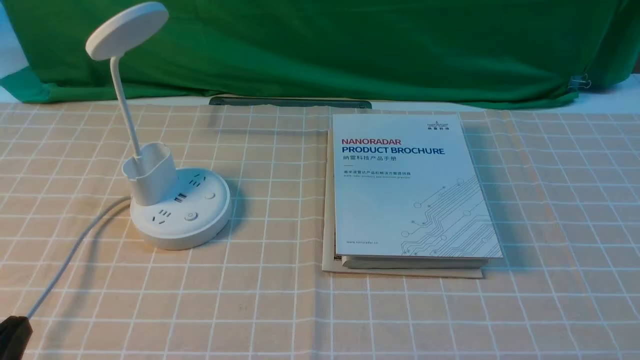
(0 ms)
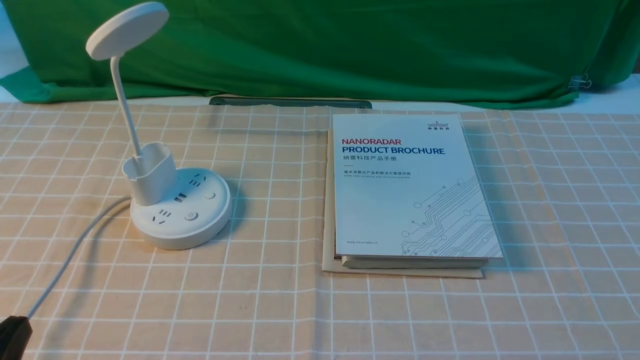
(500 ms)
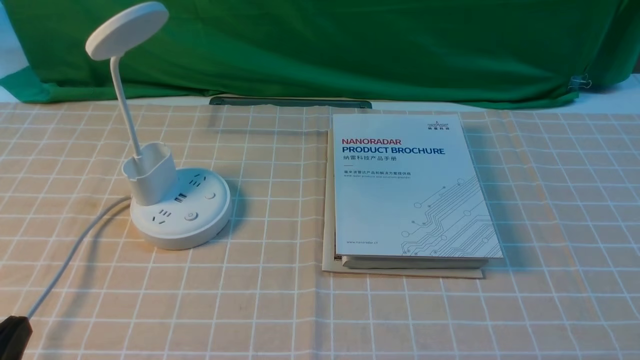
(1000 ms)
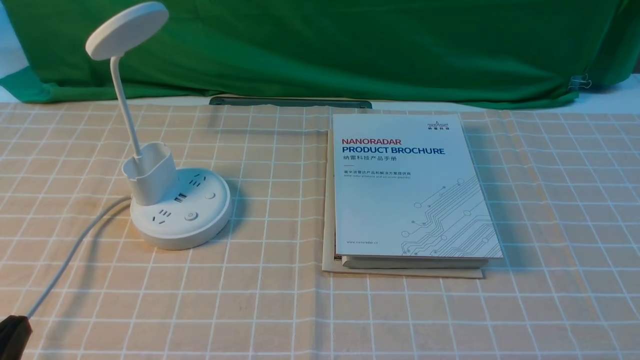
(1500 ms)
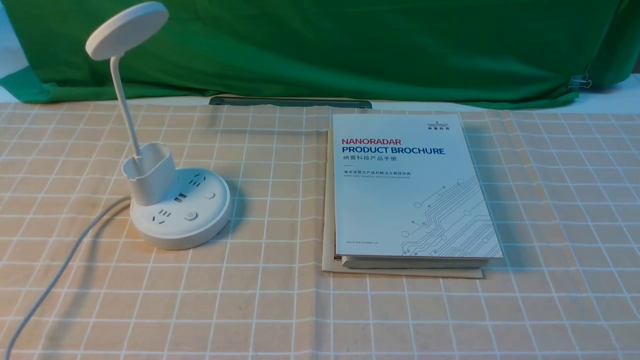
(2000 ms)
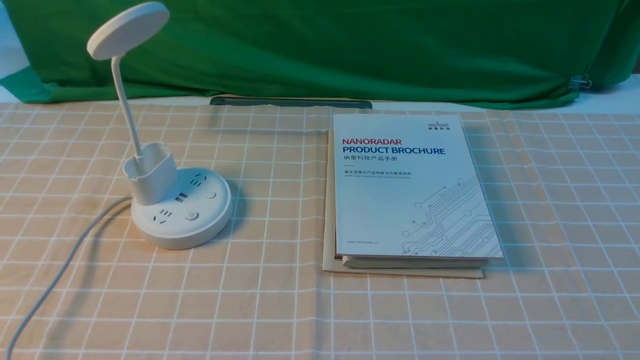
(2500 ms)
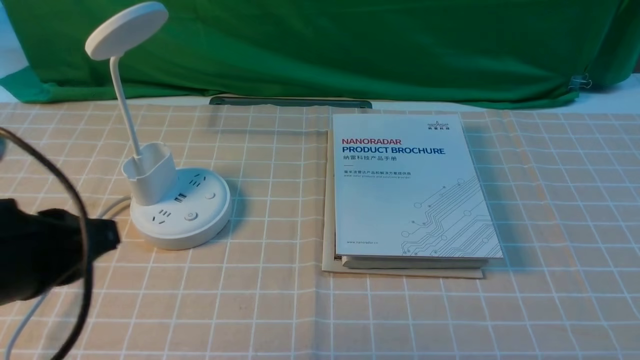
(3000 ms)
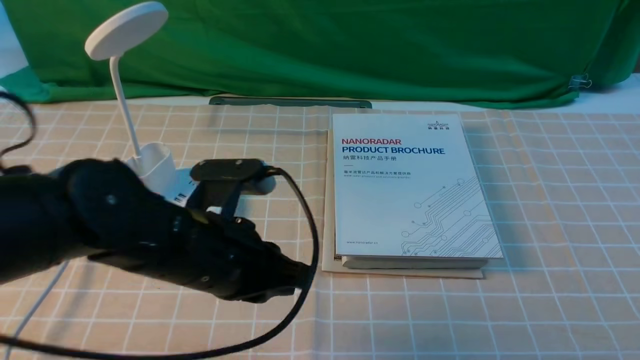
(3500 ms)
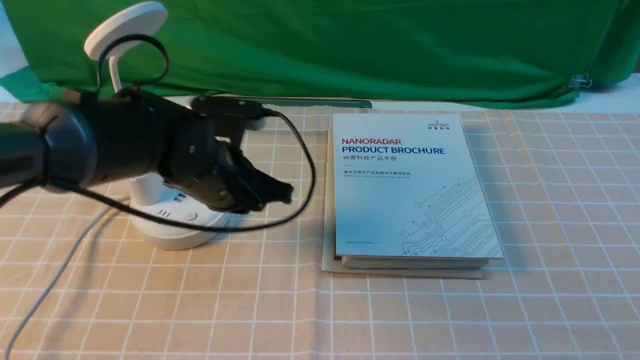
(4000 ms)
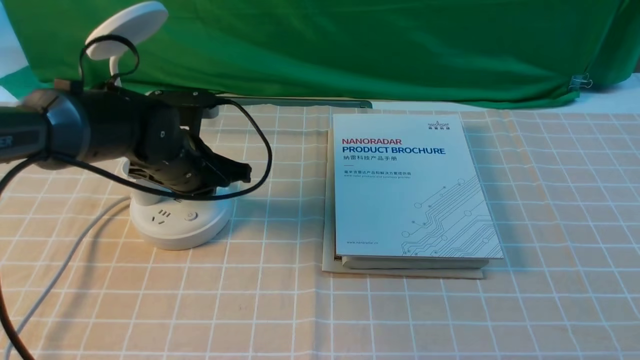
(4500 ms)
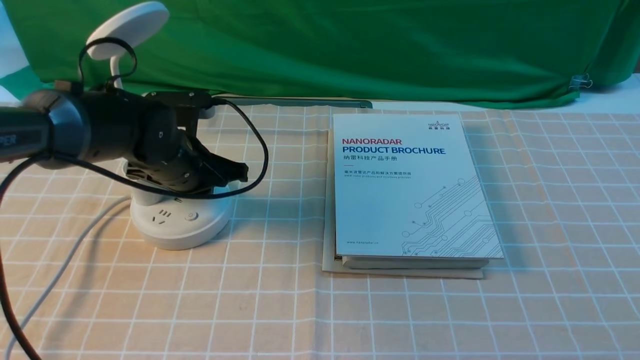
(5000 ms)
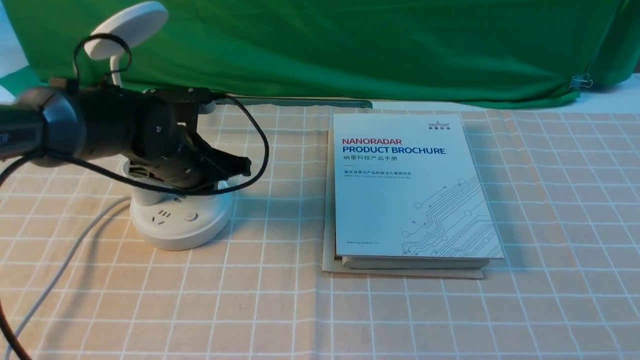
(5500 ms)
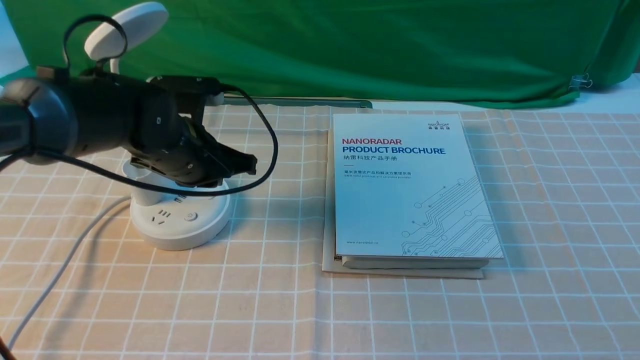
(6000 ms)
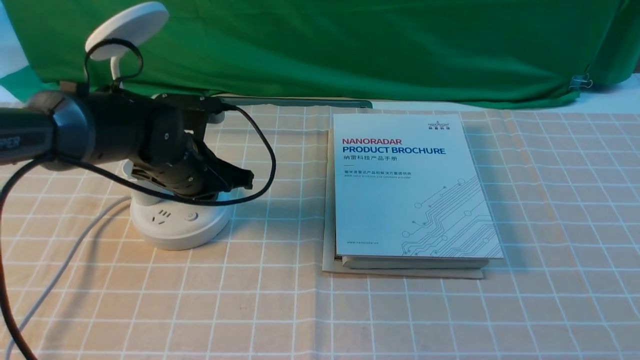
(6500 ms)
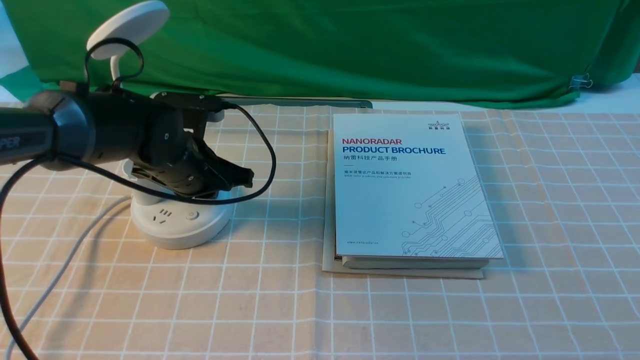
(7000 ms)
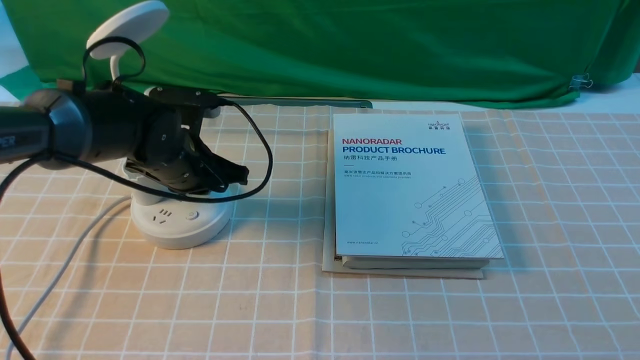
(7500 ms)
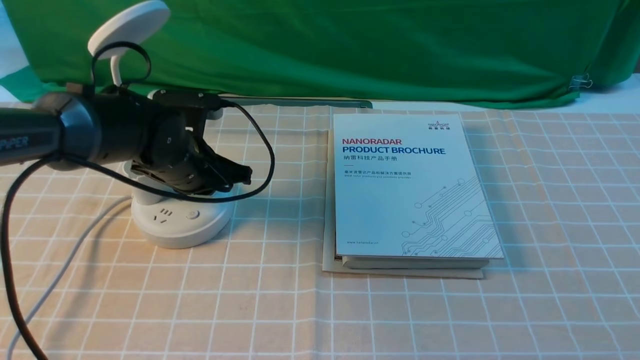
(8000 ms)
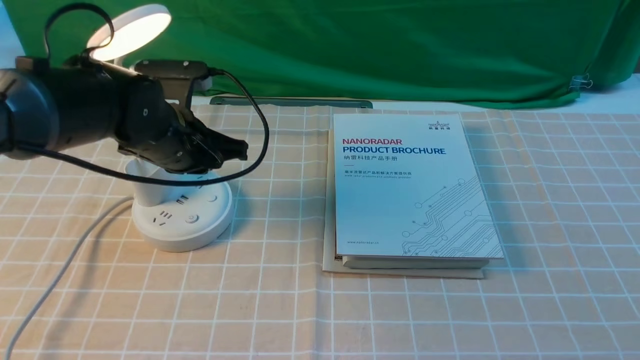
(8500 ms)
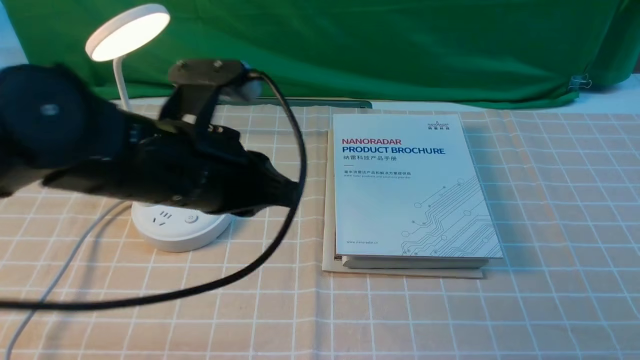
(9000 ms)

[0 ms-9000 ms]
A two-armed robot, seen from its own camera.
Step, 0 ms to 8500 ms: use the left arm to press the button switch on the lamp holder.
2000 ms to 4500 ms: The left gripper heads forward, covering approximately 35 cm, and closes up.
4500 ms to 7000 ms: The grippers make only small movements.
7000 ms to 9000 ms: The left gripper shifts some 20 cm backward and upward.

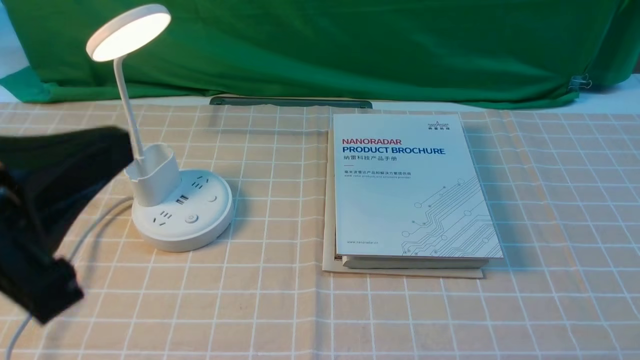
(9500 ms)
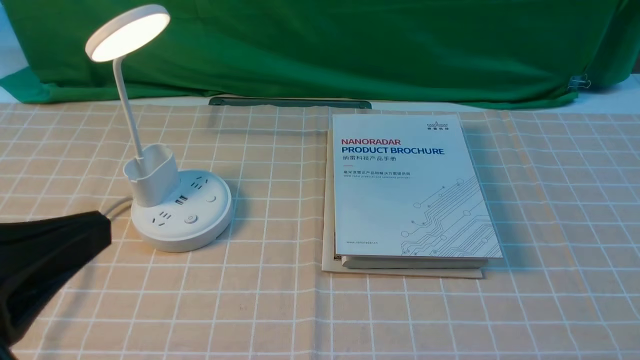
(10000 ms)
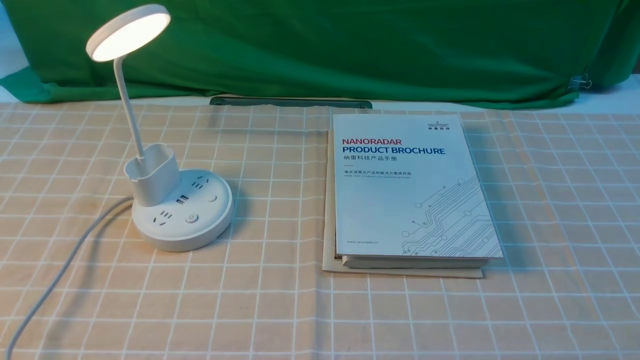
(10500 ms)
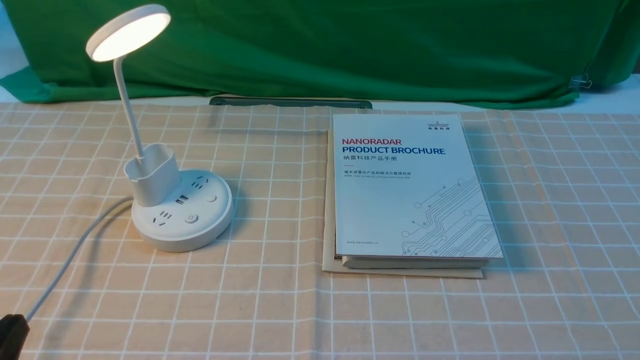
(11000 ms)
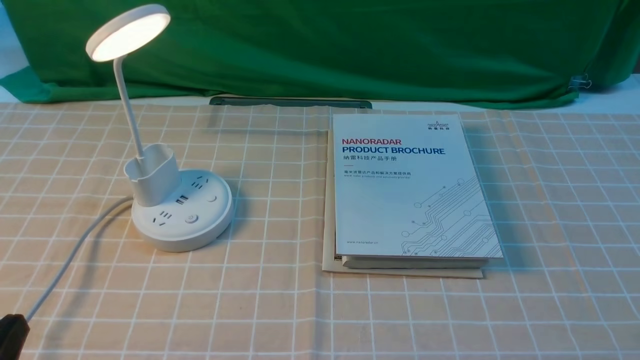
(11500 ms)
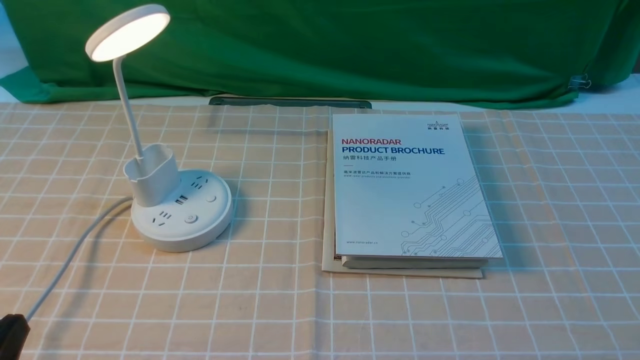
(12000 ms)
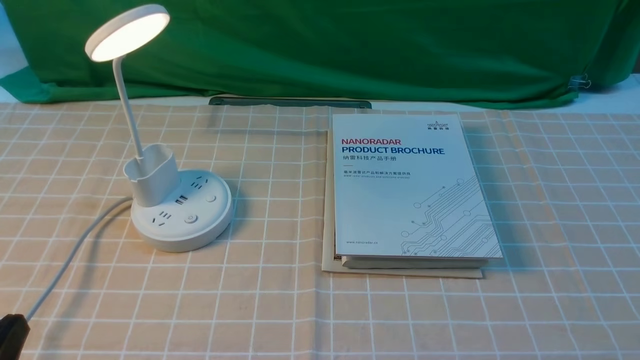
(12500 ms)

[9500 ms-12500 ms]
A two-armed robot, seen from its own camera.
9500 ms to 11000 ms: The left gripper is displaced downward by roughly 15 cm.
11000 ms to 12500 ms: Neither gripper changes place.

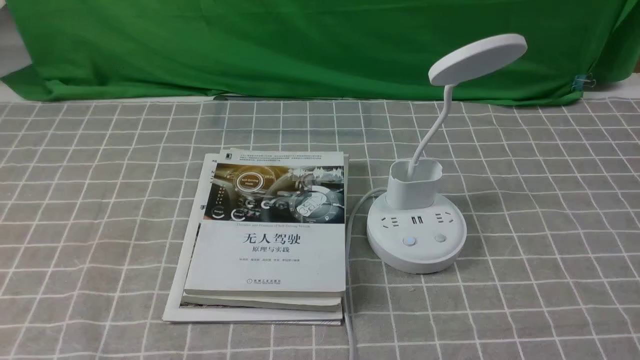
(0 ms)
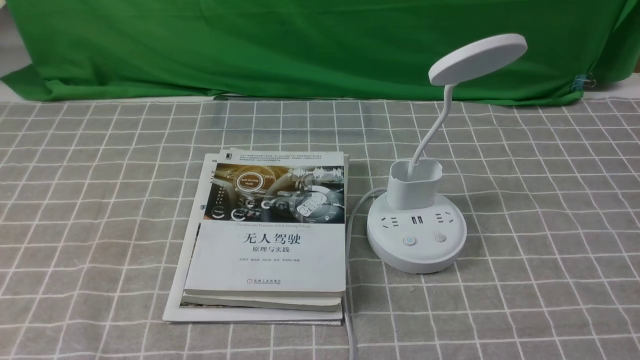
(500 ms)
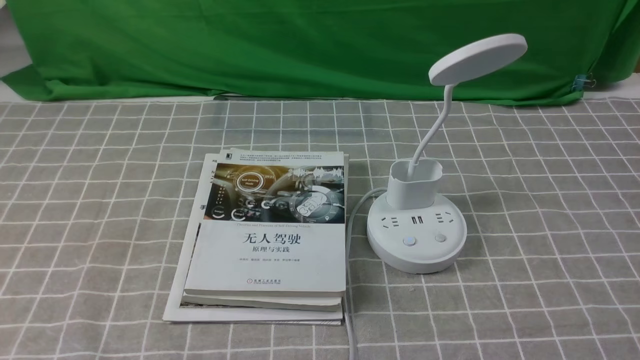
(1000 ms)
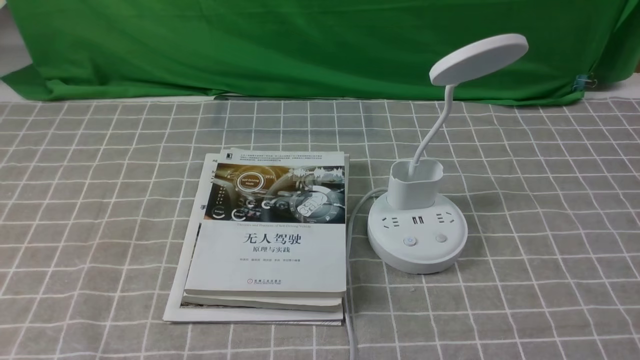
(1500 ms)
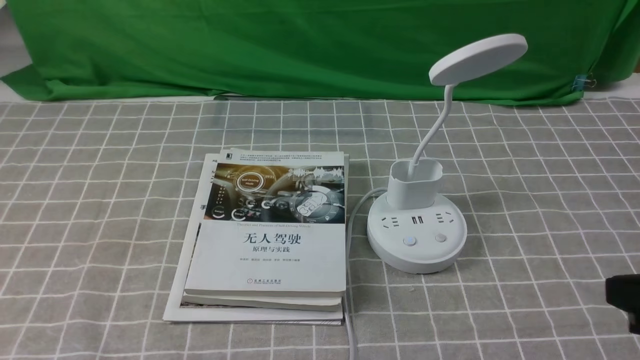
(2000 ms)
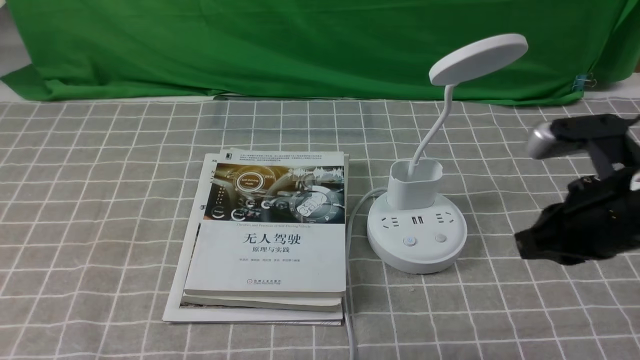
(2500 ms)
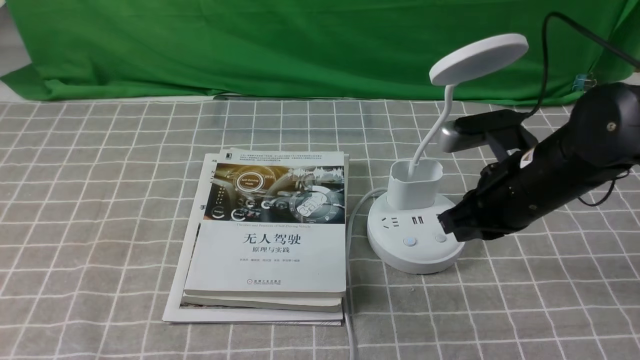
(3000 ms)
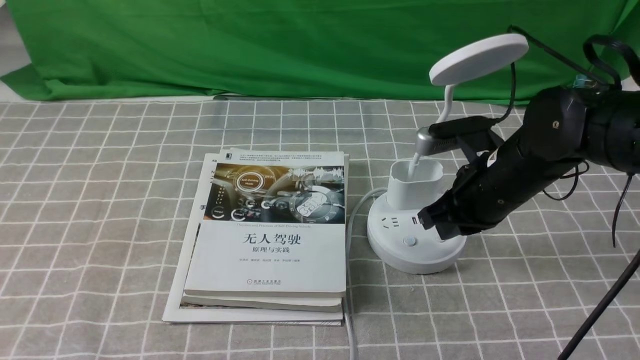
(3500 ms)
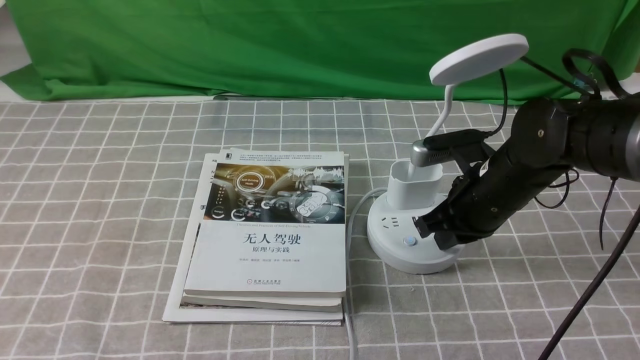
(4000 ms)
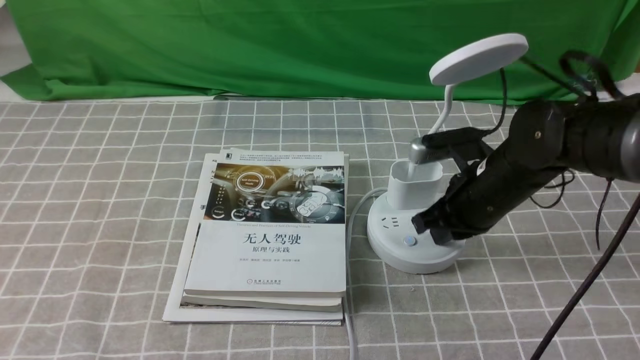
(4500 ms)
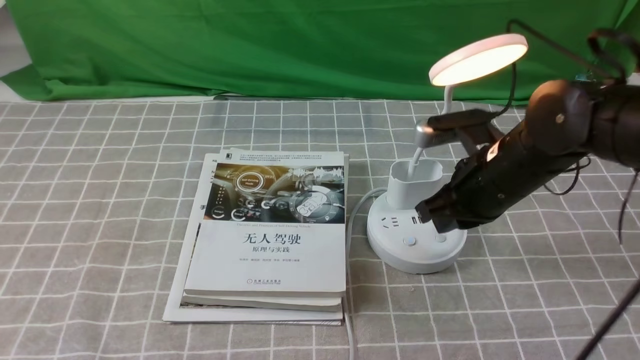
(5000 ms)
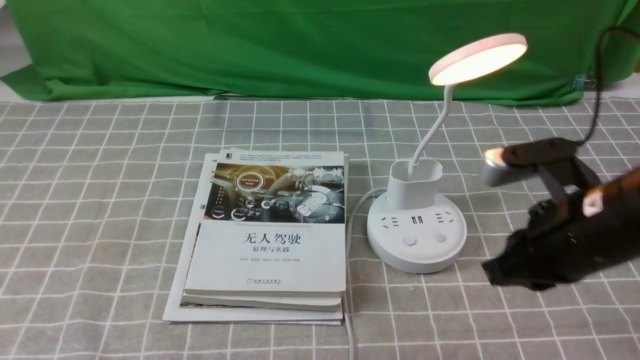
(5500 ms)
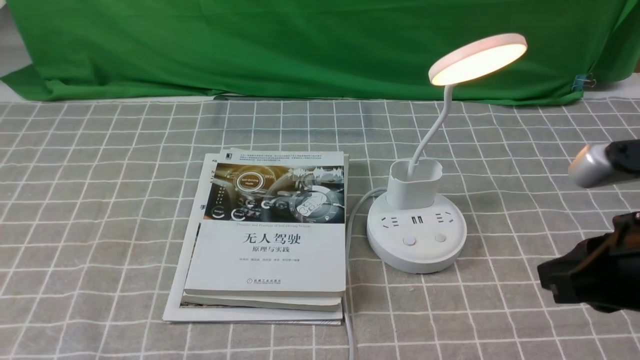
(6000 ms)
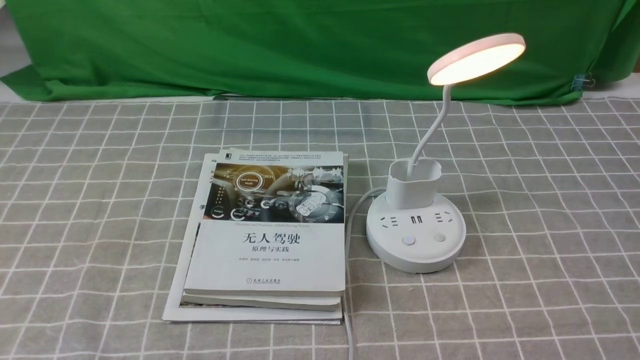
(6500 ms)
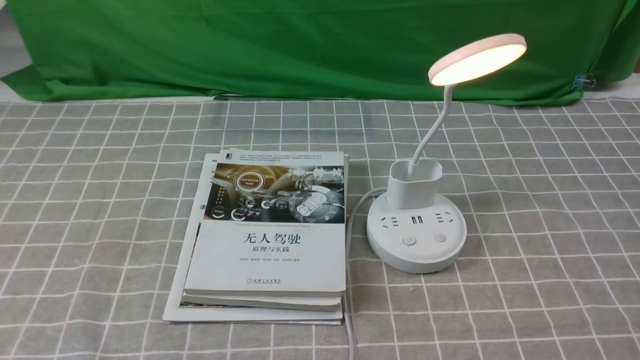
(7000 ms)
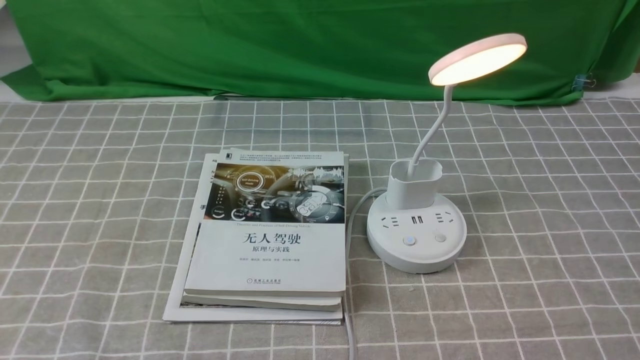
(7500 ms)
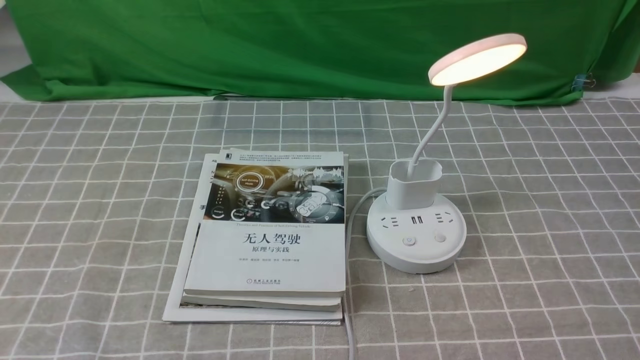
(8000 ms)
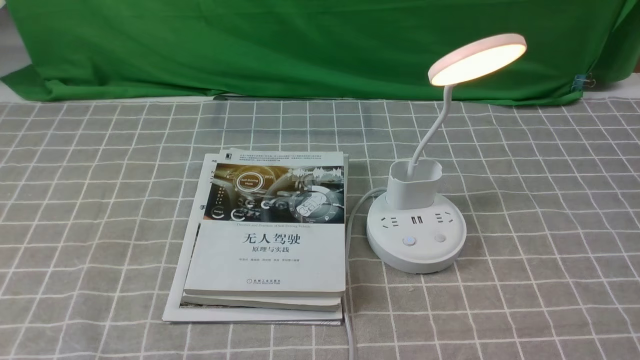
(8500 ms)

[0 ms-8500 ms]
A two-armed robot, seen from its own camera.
Step, 0 ms to 5000 ms: use the right arm to press the button switch on the lamp holder.
0 ms to 2000 ms: The right gripper is displaced upward and forward by about 15 cm, and closes up.
2000 ms to 4000 ms: The right gripper goes roughly 25 cm forward, to the left and downward.
4000 ms to 6500 ms: The right gripper travels backward and to the right by some 30 cm.
